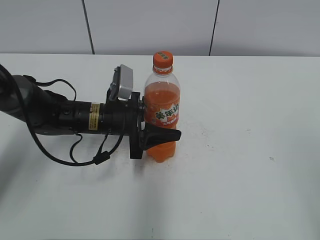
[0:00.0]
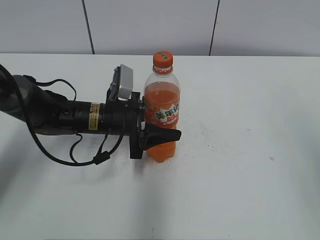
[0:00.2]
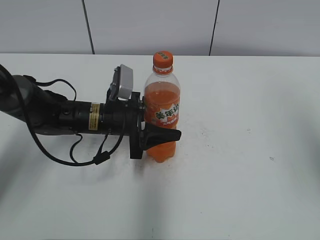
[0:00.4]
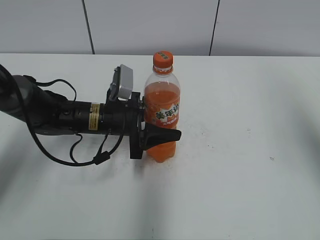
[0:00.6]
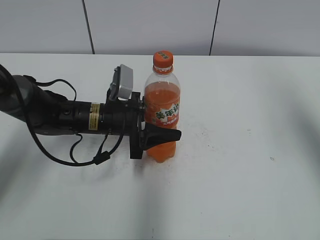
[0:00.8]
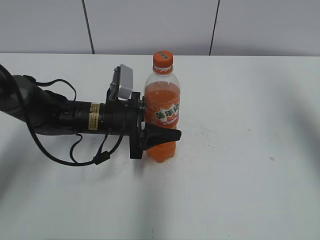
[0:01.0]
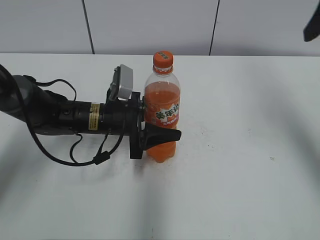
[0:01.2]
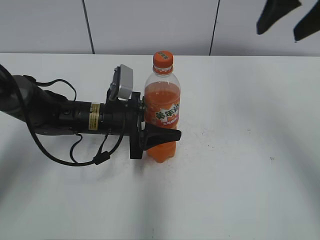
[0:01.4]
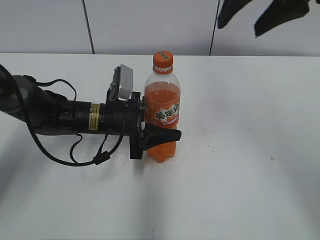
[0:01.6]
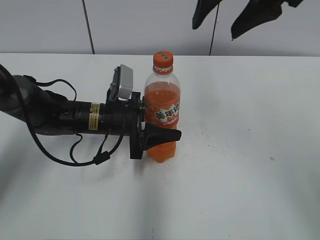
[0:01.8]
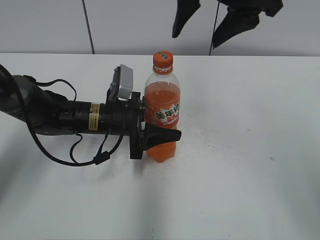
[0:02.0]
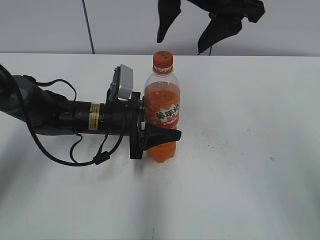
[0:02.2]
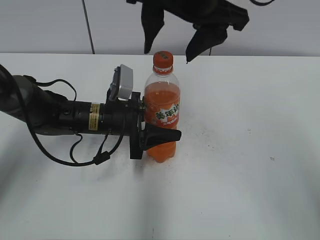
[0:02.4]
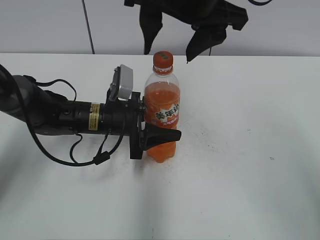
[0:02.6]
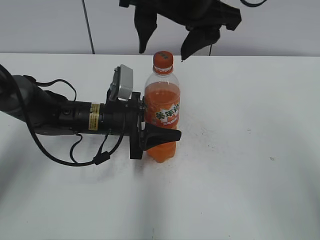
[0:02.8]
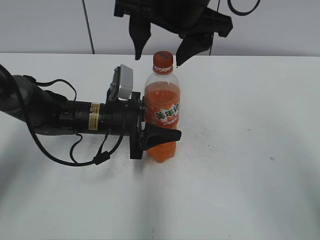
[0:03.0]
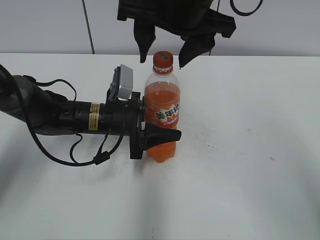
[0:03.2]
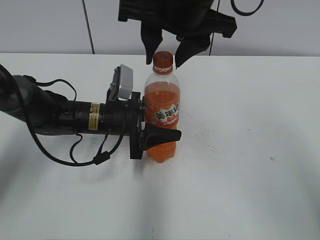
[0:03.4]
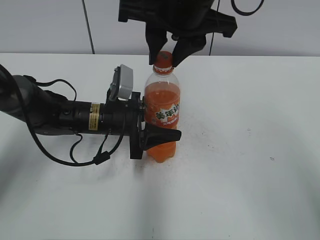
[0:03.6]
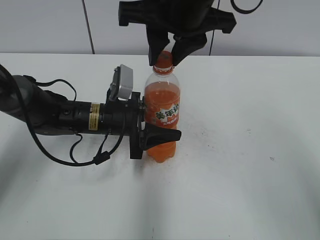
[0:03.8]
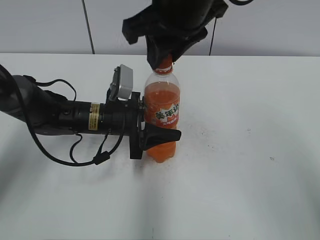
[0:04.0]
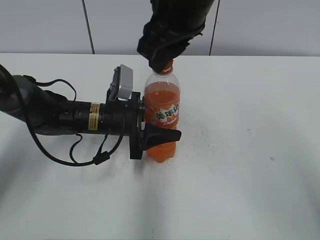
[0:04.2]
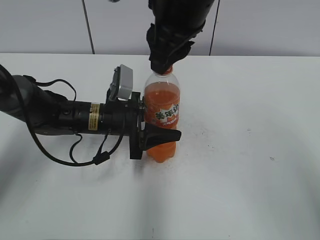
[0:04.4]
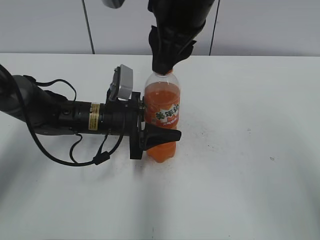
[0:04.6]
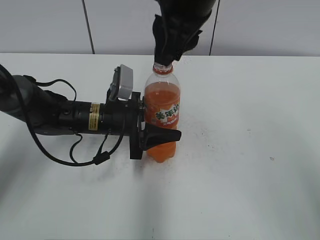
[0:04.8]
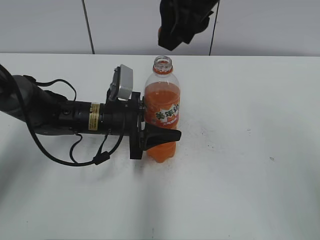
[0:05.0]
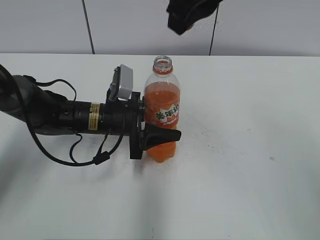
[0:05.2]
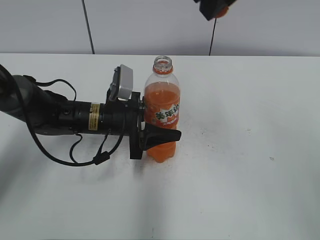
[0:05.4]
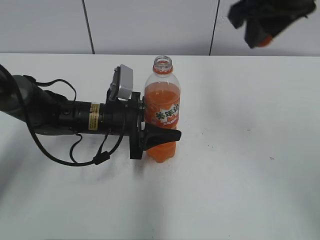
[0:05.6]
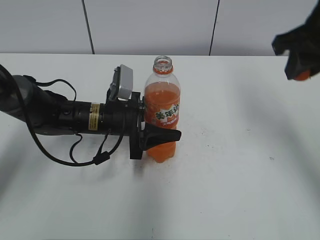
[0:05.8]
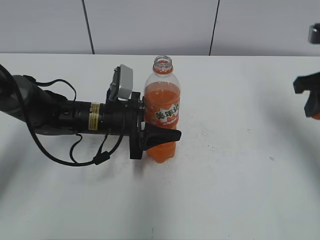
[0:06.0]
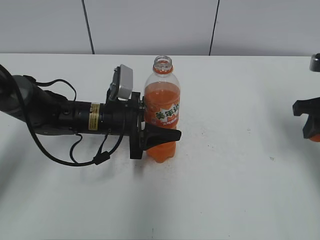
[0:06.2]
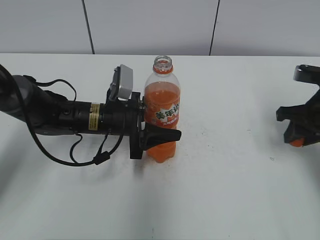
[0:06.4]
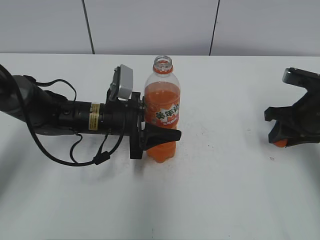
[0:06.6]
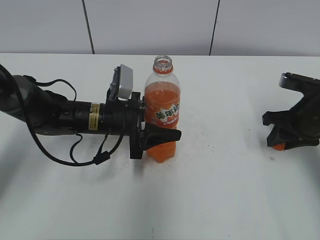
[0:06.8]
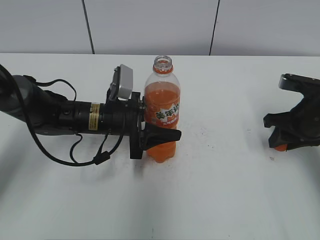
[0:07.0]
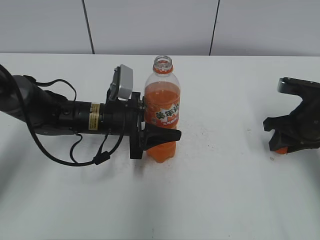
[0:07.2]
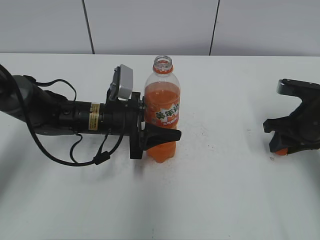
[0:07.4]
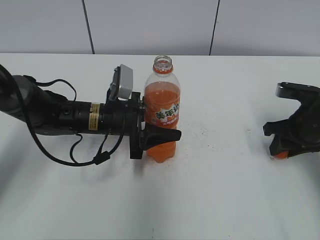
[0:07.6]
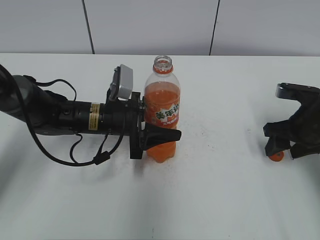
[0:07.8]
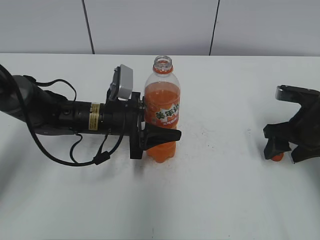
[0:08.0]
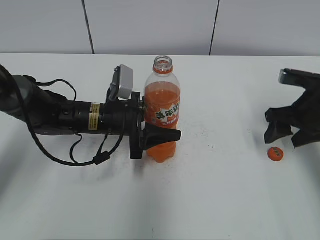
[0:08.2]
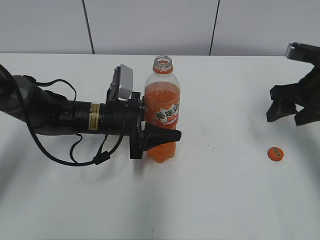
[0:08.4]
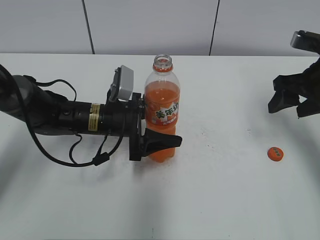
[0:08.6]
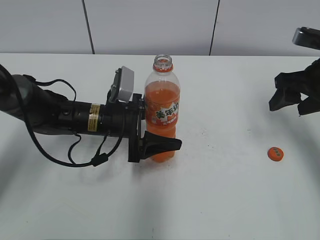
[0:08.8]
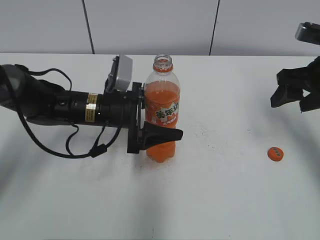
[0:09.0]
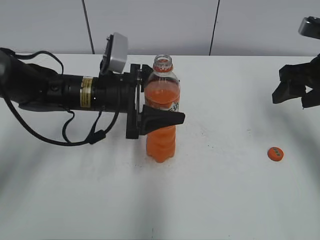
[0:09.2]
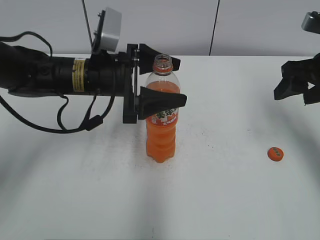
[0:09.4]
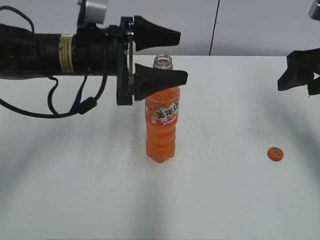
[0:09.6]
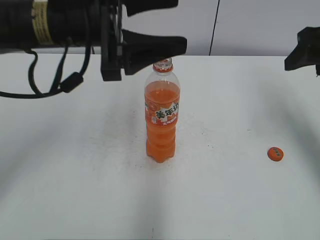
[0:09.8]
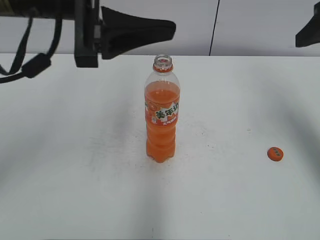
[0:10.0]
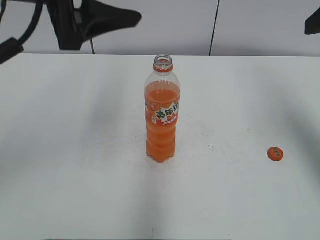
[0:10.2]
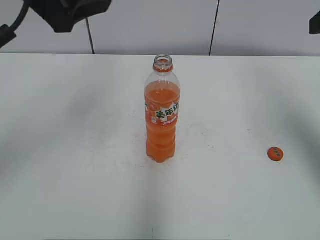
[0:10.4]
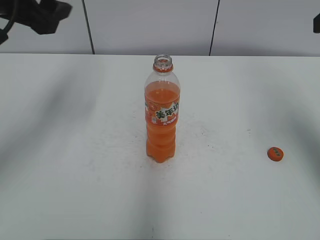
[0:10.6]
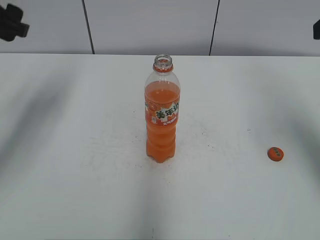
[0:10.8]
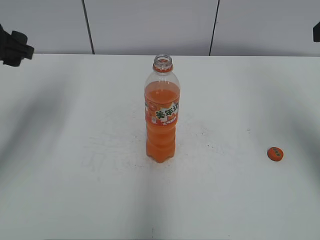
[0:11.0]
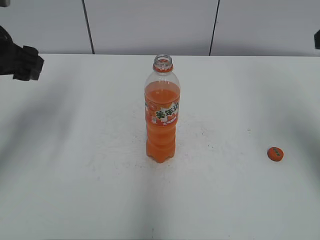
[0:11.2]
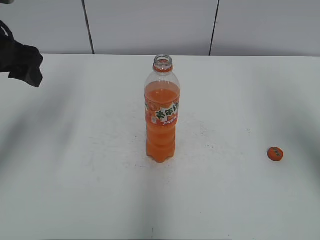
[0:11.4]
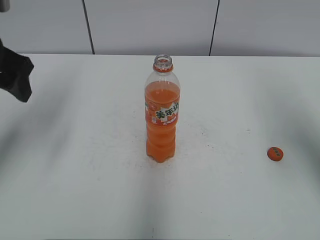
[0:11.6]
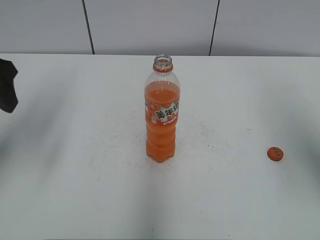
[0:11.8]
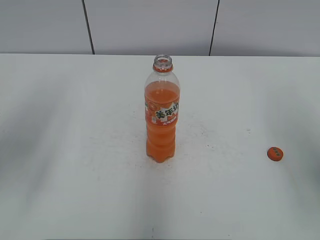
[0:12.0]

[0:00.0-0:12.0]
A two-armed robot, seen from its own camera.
Step, 0:05.0 to 0:07.6: Place the bottle cap on the right.
0:00.0 to 0:01.6: The right gripper is displaced forward and to the left by approximately 30 cm.
0:01.6 to 0:03.0: The right gripper shifts roughly 15 cm to the left.
0:03.0 to 0:04.4: The right gripper closes.
0:04.4 to 0:06.0: The right gripper goes about 25 cm to the right.
0:06.0 to 0:07.6: The right gripper goes some 15 cm downward.
0:07.6 to 0:09.0: The left gripper opens up. Meanwhile the right gripper heads upward, covering about 10 cm, and opens.
0:09.0 to 0:10.4: The right gripper goes roughly 15 cm upward and backward, while the left gripper shifts some 25 cm upward.
0:10.4 to 0:12.0: The left gripper goes about 10 cm to the left and backward, while the right gripper goes roughly 10 cm backward.

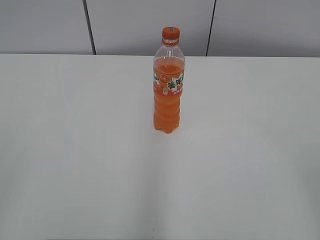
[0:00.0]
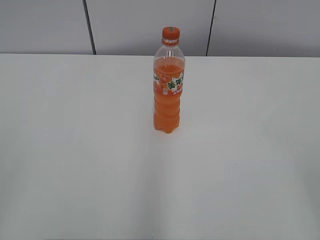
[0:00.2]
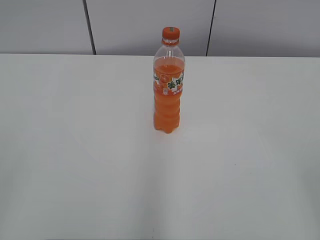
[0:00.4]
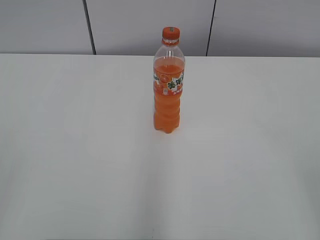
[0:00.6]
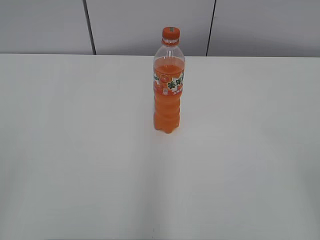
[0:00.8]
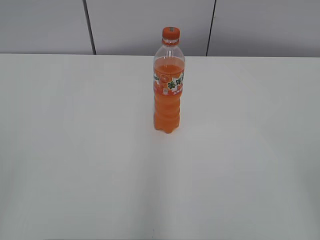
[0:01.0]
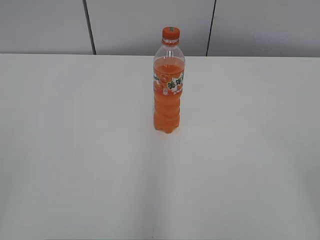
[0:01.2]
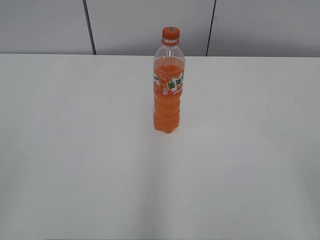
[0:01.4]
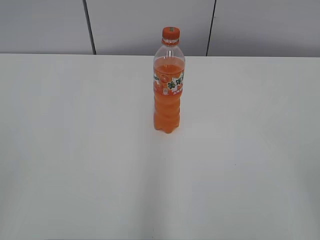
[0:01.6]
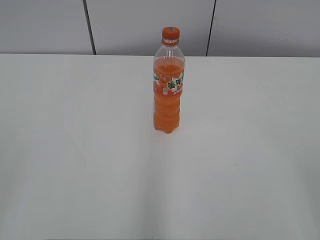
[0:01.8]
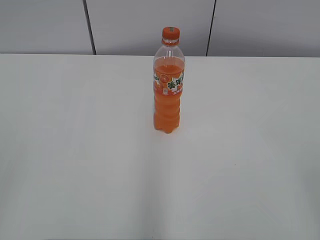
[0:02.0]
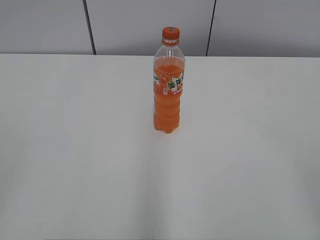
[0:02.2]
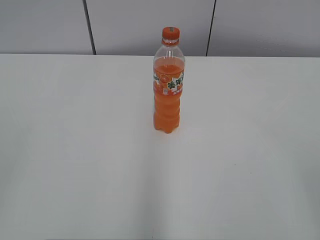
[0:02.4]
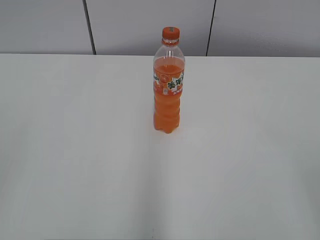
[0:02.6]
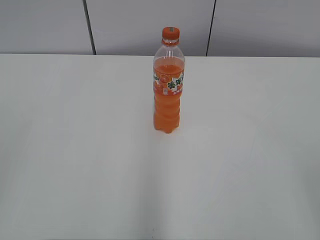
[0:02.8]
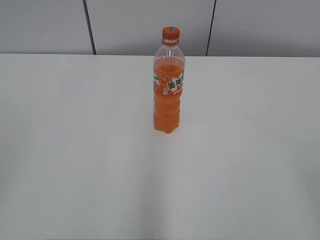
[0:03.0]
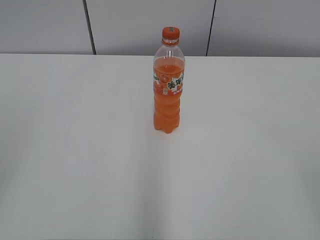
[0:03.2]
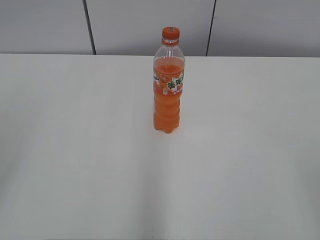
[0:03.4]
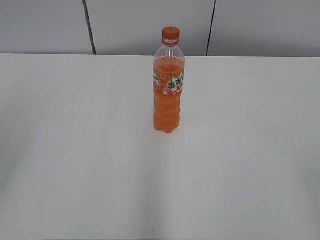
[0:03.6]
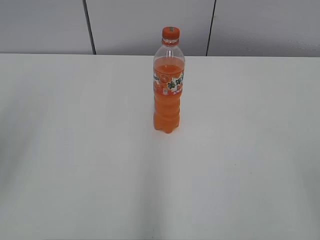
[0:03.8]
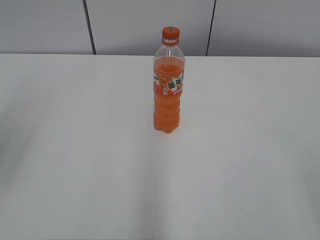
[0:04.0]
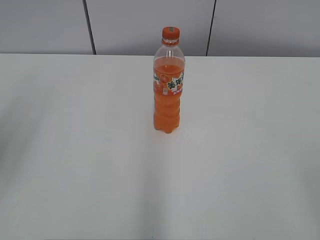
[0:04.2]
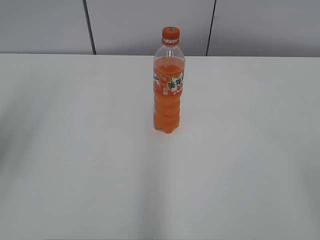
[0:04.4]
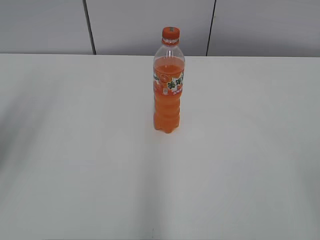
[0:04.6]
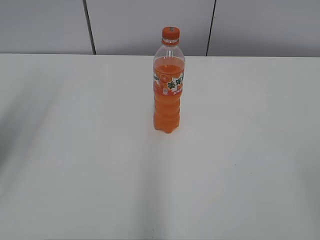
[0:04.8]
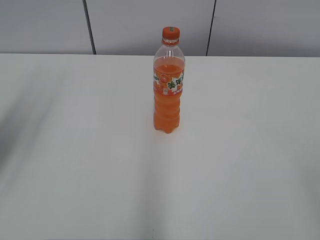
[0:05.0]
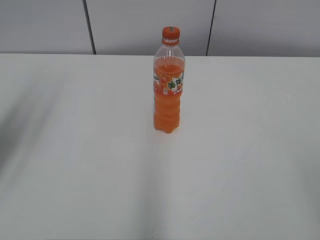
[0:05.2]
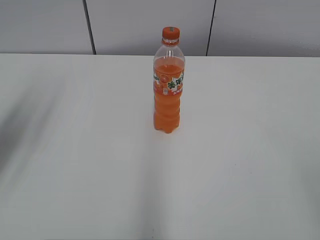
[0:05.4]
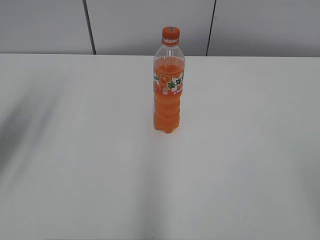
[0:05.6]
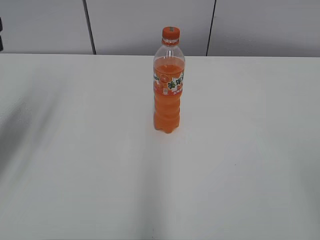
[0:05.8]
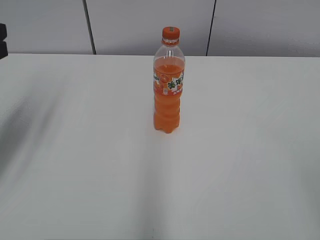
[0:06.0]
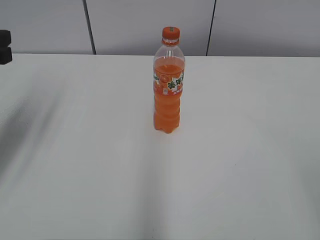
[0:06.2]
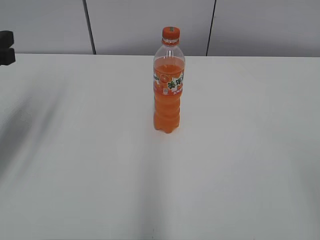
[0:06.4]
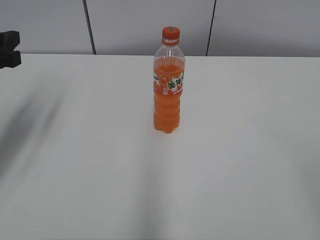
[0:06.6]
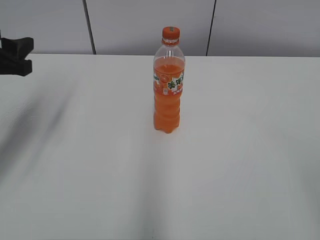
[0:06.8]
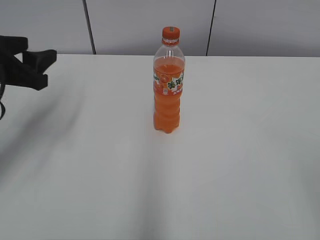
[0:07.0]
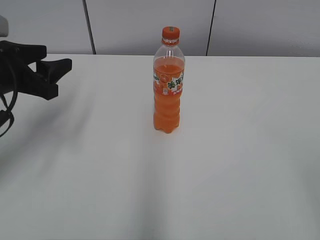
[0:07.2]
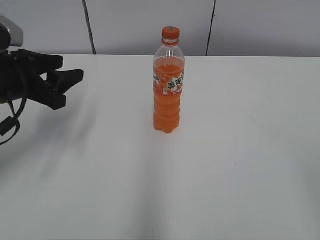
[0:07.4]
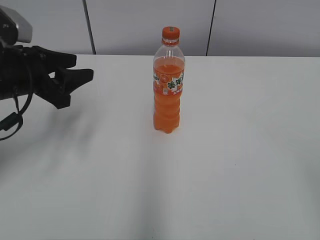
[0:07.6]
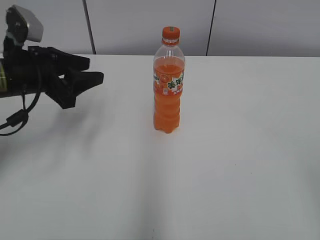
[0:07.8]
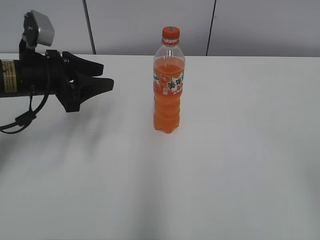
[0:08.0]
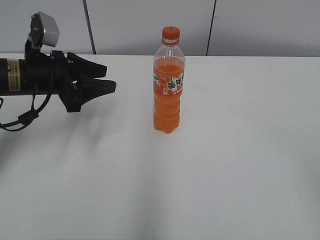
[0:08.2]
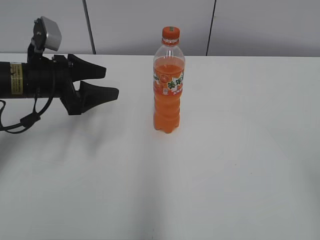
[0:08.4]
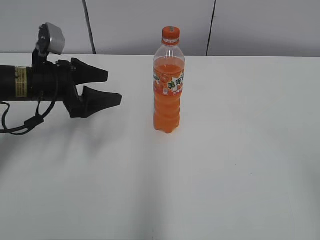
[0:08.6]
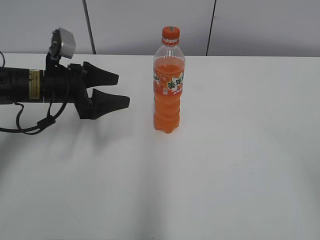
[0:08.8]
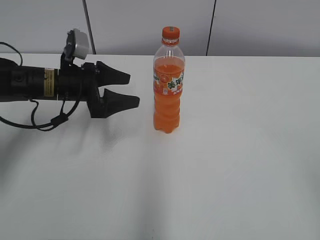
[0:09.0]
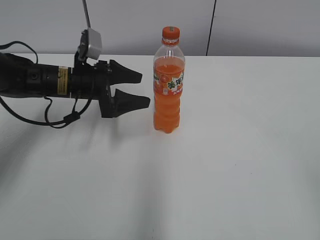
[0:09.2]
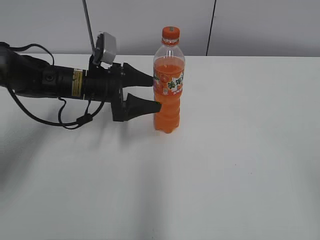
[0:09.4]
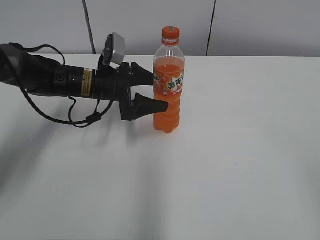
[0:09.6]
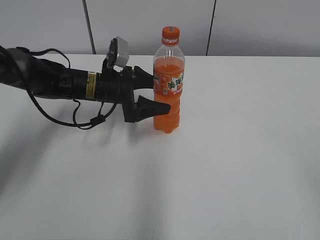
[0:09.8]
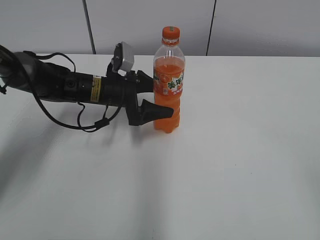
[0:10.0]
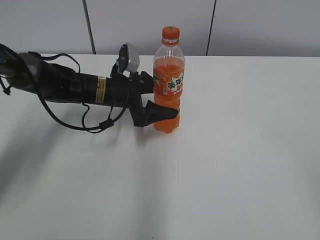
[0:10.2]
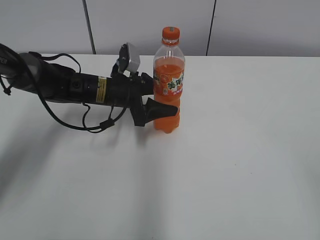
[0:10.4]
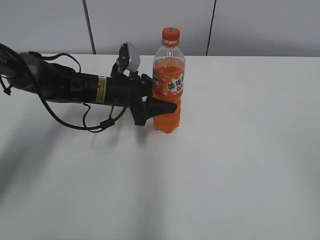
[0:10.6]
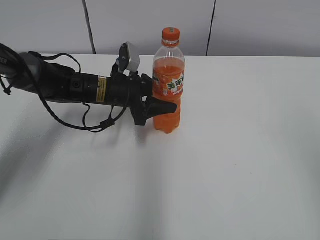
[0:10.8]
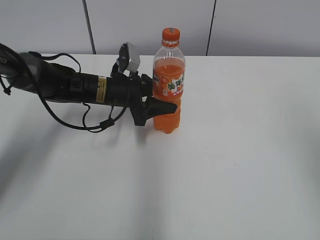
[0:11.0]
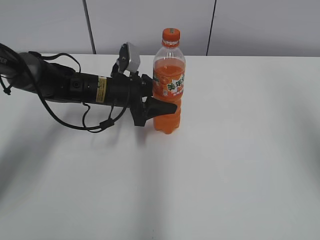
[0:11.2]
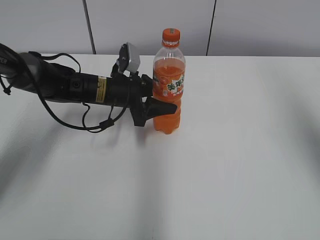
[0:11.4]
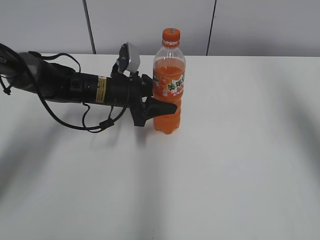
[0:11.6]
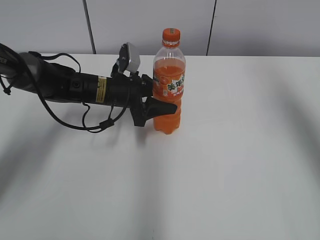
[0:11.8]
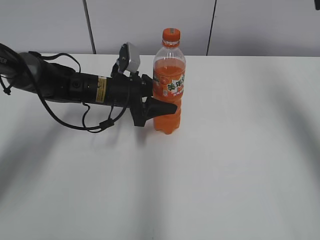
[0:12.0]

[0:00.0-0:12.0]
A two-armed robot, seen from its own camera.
Step, 0:00.0 to 0:11.0: Grab the Mirinda with the left hand.
0:04.4 to 0:06.0: The left gripper goes about 15 cm forward and downward.
0:06.0 to 0:07.6: The left gripper heads downward and to the right, covering about 10 cm.
0:07.6 to 0:09.0: The left gripper heads forward, downward and to the right, covering about 10 cm, and opens up.
0:09.0 to 0:10.4: The left gripper shifts approximately 10 cm to the right.
0:10.4 to 0:12.0: The right gripper moves forward, about 35 cm. Meanwhile the left gripper closes.
